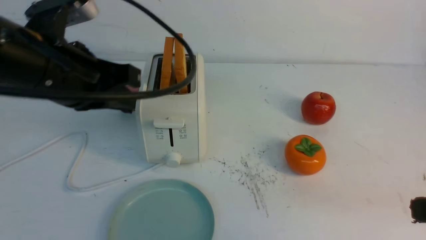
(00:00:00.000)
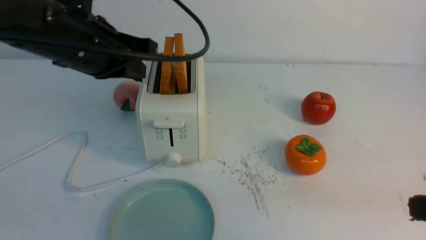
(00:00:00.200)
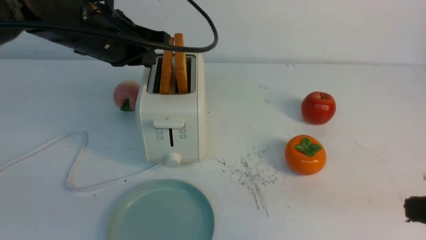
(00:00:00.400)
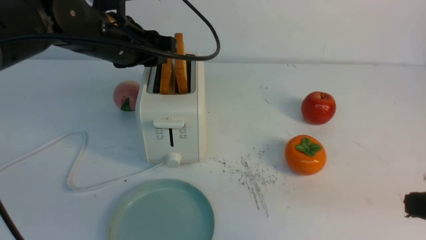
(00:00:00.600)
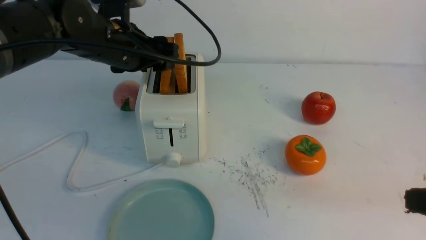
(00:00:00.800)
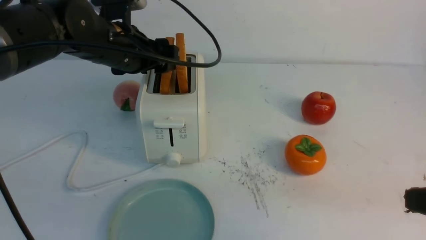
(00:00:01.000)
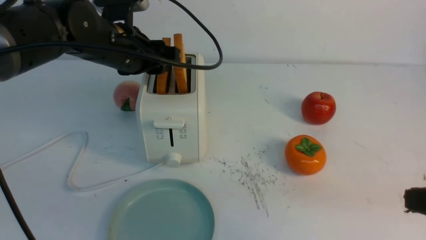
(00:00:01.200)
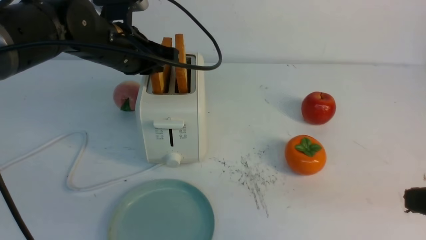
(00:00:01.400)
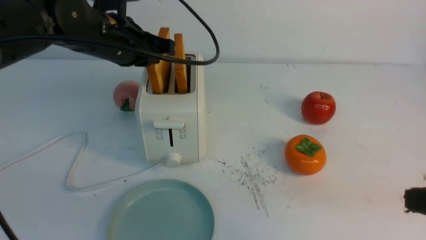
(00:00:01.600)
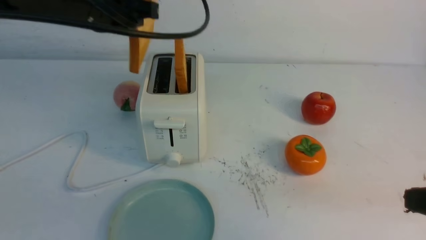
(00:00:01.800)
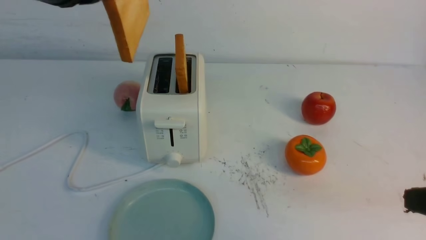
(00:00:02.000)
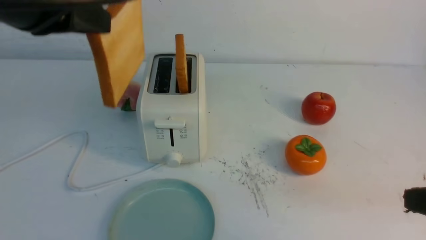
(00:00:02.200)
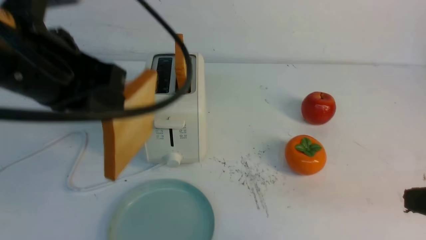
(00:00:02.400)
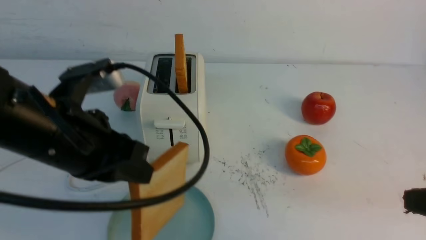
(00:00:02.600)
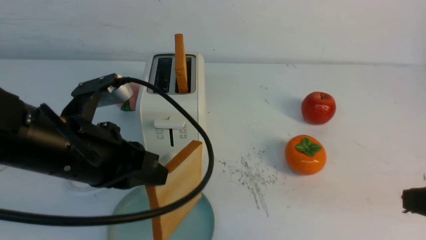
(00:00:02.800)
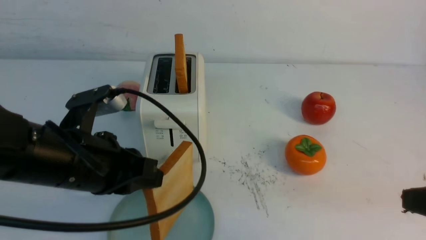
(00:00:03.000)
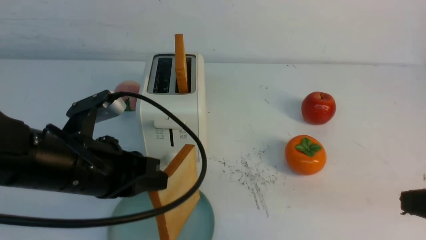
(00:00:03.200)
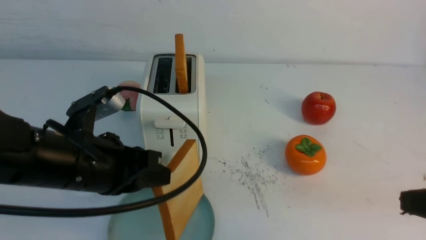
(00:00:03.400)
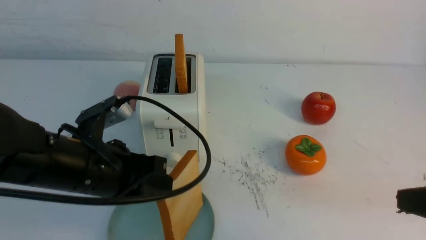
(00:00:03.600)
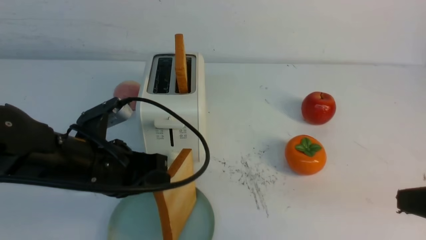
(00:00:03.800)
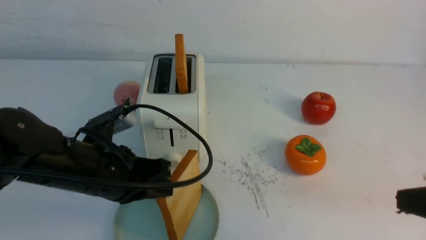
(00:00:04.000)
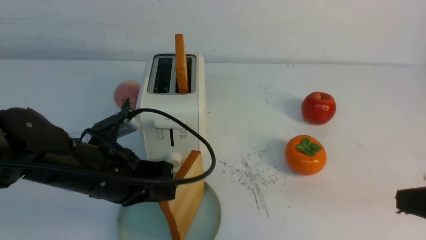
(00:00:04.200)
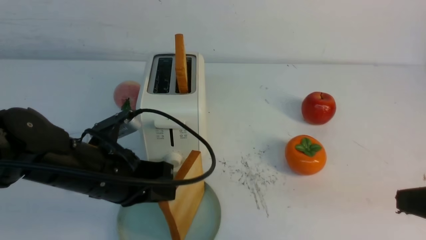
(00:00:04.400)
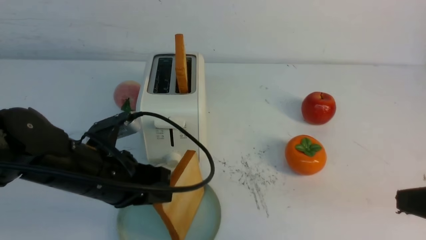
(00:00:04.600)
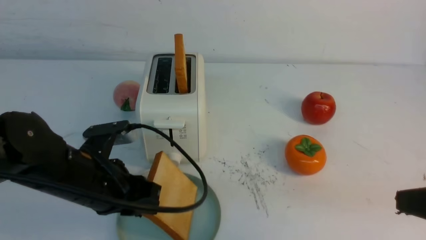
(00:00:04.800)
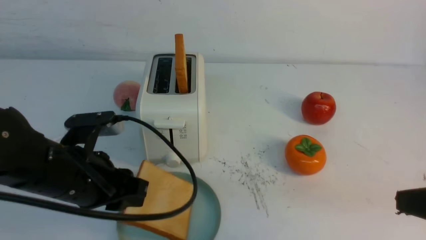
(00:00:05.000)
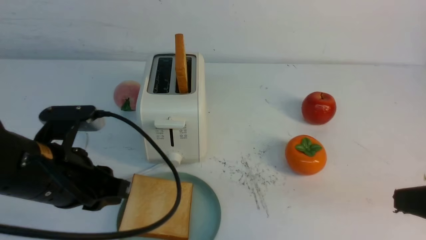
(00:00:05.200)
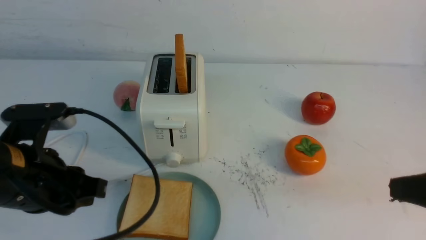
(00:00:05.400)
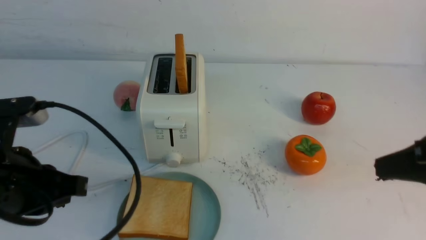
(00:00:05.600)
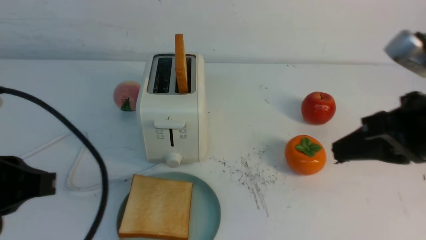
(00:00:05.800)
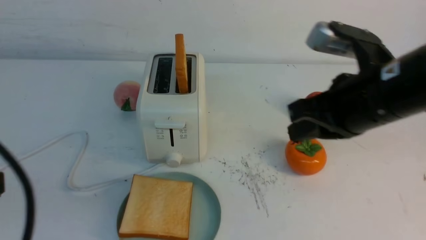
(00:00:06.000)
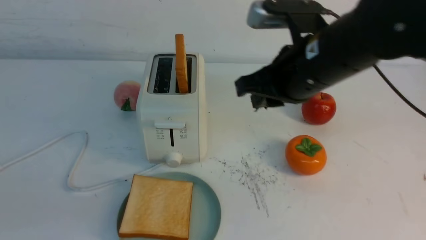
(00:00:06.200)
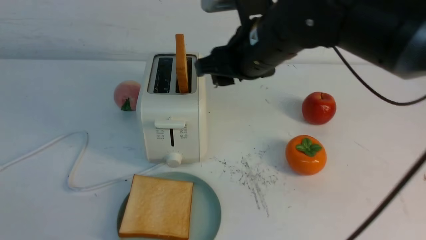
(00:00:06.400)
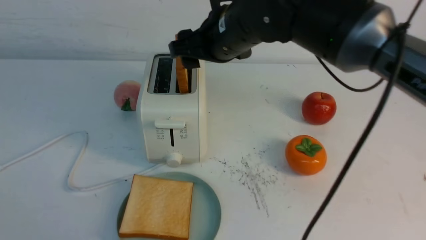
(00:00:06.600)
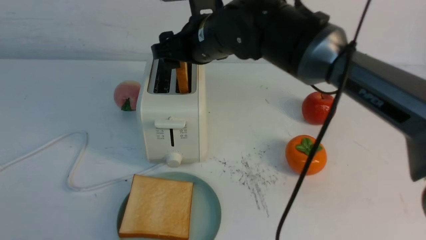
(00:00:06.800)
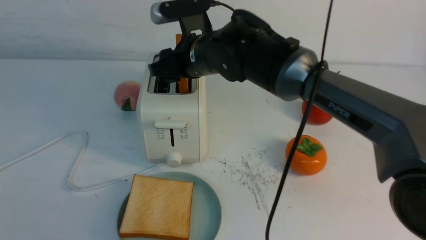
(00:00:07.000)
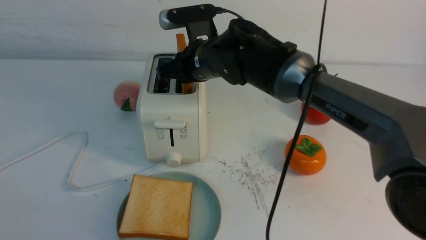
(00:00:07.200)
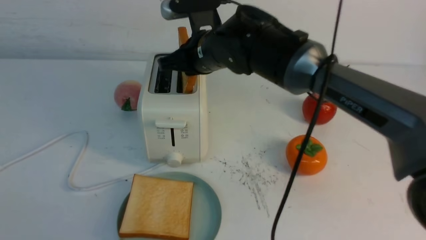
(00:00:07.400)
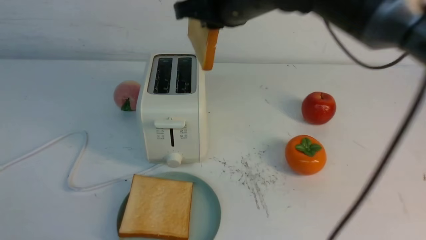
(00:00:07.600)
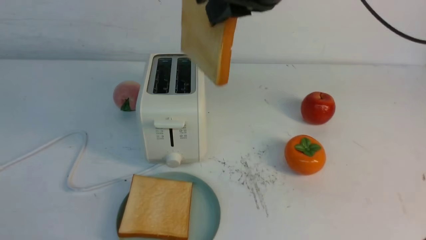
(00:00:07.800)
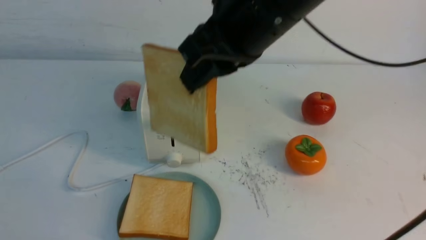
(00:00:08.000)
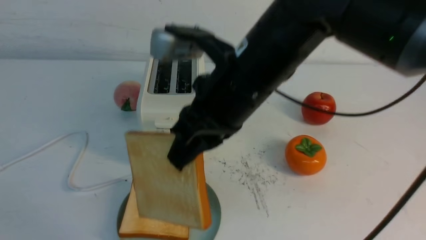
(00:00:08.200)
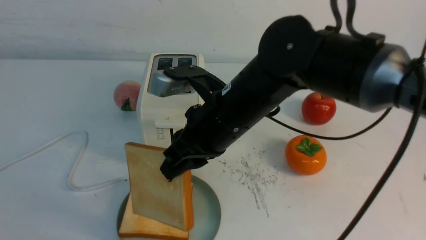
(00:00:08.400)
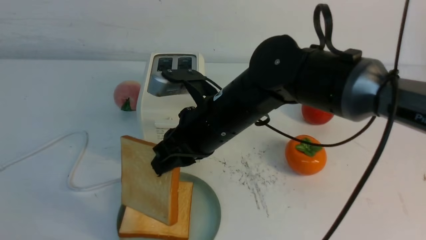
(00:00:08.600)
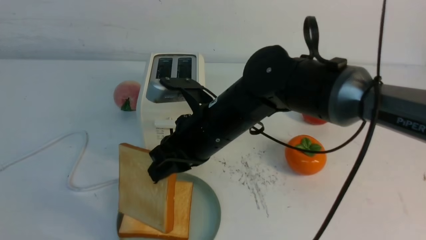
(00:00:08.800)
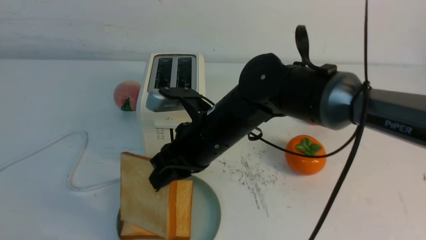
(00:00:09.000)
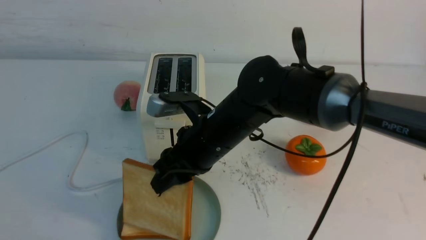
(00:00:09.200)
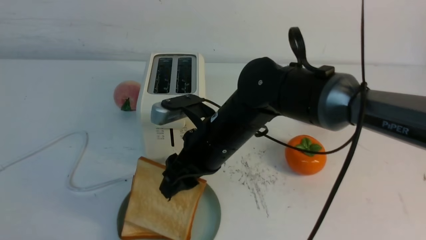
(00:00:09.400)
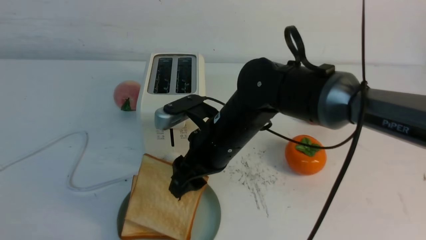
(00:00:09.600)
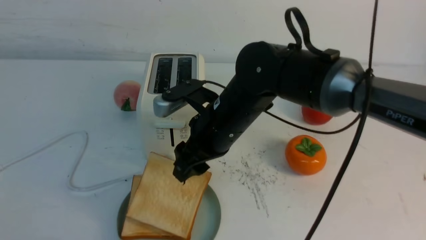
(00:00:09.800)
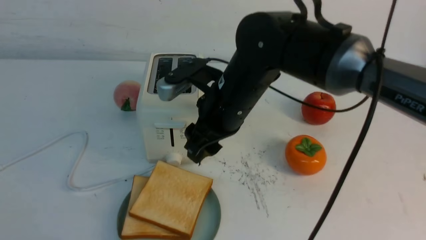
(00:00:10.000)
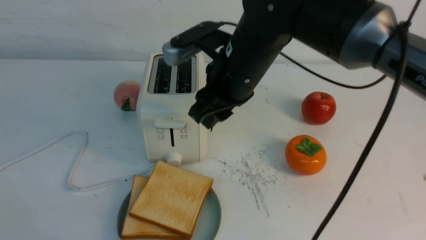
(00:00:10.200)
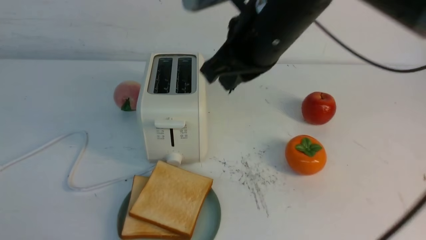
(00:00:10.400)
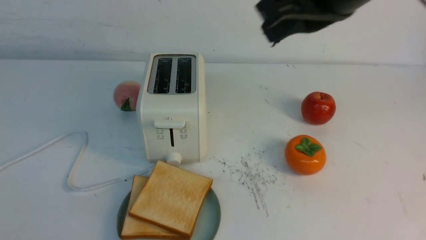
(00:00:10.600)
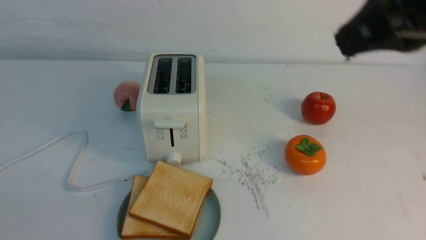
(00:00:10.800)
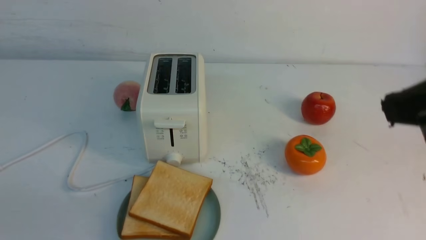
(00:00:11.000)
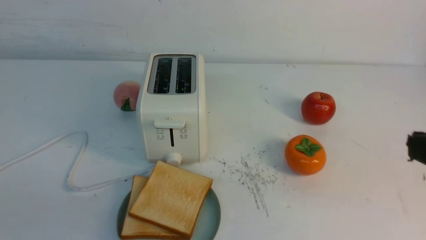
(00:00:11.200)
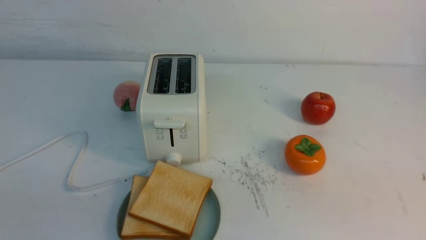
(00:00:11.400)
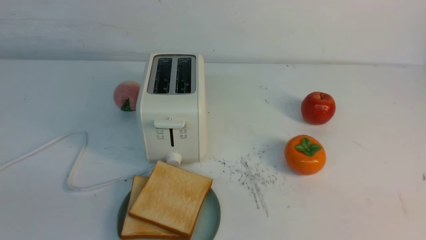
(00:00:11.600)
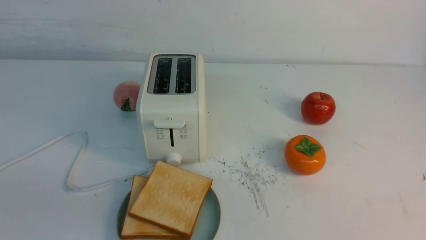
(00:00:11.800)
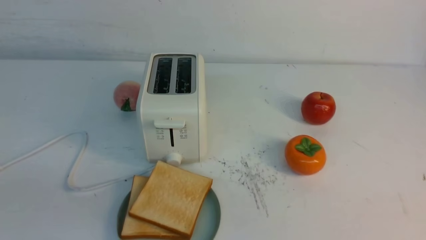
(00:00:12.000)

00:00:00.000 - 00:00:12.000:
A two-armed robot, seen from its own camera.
Task of the whole recording: take toasted bread from bread machine on white table place on plate.
Step, 00:00:01.800 - 00:00:05.000: use the left arm to put a slice of bread into the empty plate.
Step, 00:00:05.200 - 00:00:07.400: use the right arm to take out a slice of bread.
Step, 00:00:07.600 - 00:00:09.800: use the right arm to put a slice of bread into the plate.
00:00:00.000 - 00:00:01.600: The left gripper goes some 10 cm forward, and opens, then closes once more.
00:00:01.600 - 00:00:03.000: The left gripper travels backward and downward by roughly 15 cm.
00:00:03.000 - 00:00:04.400: The left gripper heads downward, covering about 5 cm.
00:00:04.400 - 00:00:06.000: The left gripper travels backward, upward and to the left by about 20 cm, and opens and closes again; the right gripper travels forward and to the left by roughly 15 cm.
00:00:06.000 - 00:00:07.600: The right gripper is displaced to the left, forward and upward by roughly 15 cm, and opens, then closes again; the left gripper is displaced backward by approximately 10 cm.
00:00:07.600 - 00:00:09.000: The right gripper heads downward, covering roughly 15 cm.
00:00:09.000 - 00:00:10.400: The right gripper shifts about 20 cm upward and to the right, and opens, then closes again.
00:00:10.400 - 00:00:12.000: The right gripper shifts roughly 40 cm backward, to the right and downward.

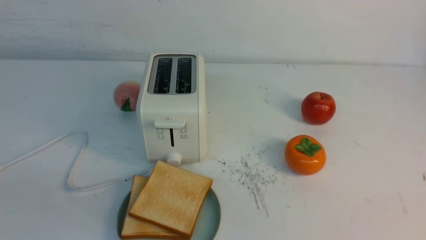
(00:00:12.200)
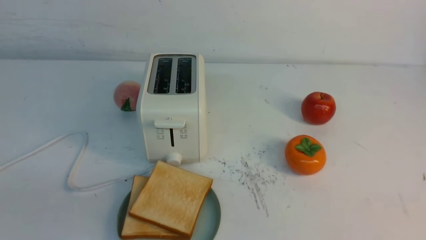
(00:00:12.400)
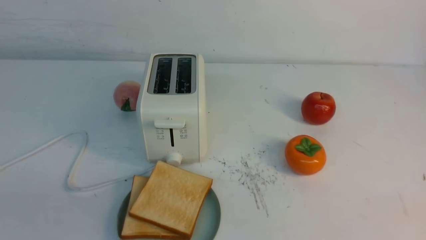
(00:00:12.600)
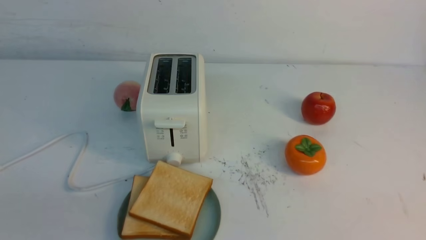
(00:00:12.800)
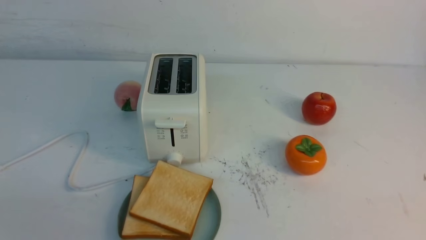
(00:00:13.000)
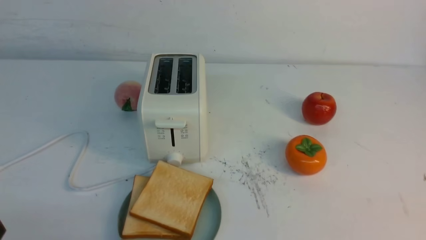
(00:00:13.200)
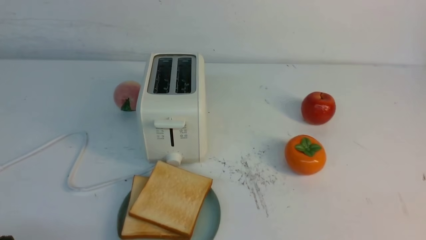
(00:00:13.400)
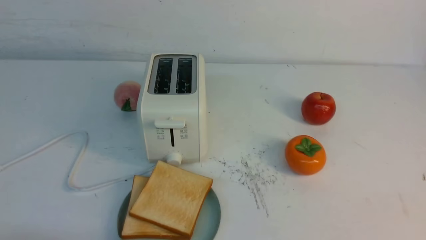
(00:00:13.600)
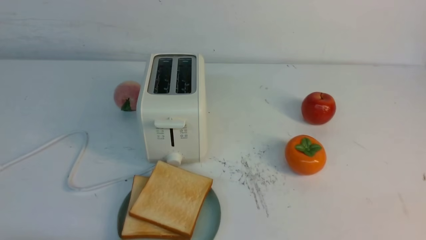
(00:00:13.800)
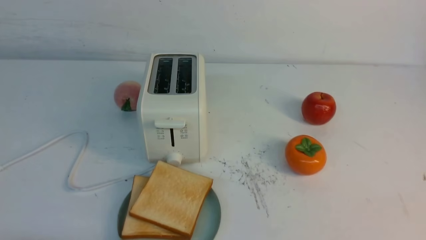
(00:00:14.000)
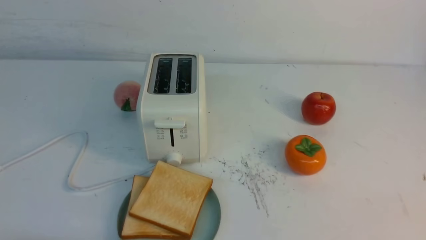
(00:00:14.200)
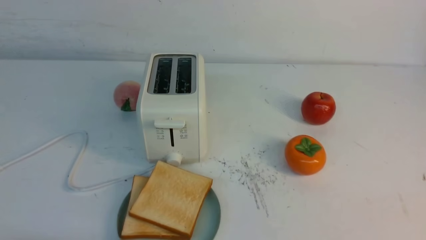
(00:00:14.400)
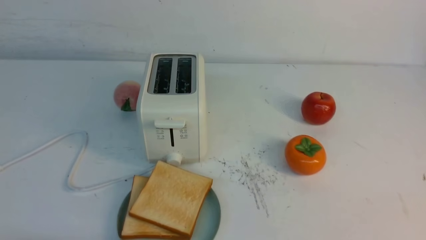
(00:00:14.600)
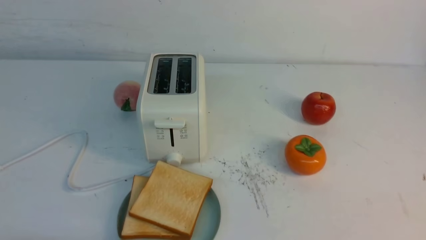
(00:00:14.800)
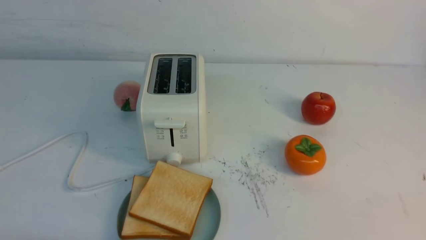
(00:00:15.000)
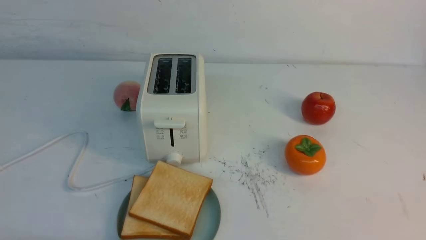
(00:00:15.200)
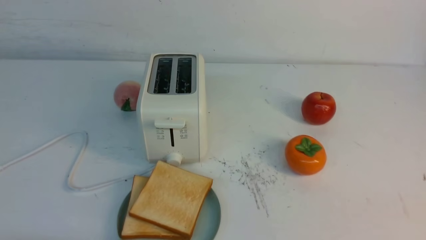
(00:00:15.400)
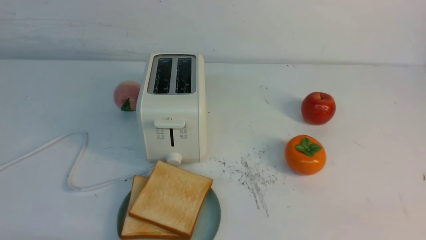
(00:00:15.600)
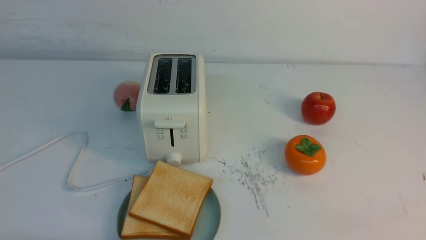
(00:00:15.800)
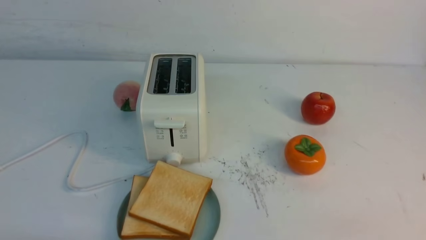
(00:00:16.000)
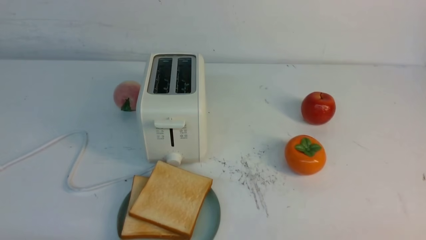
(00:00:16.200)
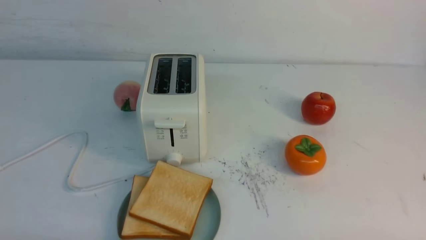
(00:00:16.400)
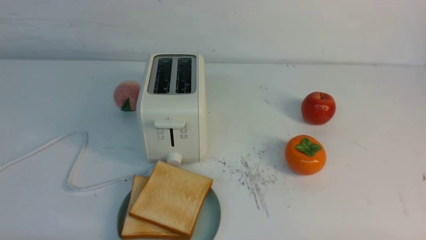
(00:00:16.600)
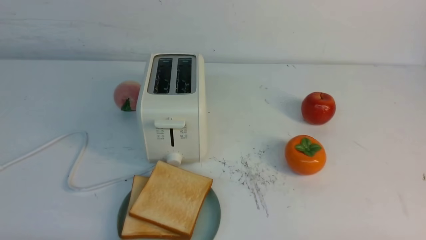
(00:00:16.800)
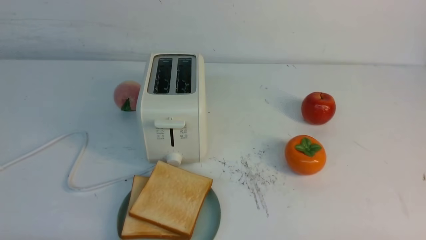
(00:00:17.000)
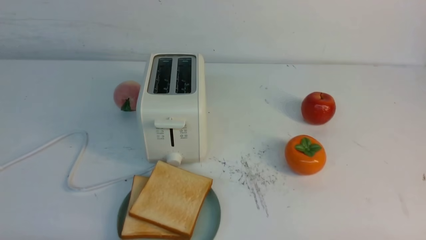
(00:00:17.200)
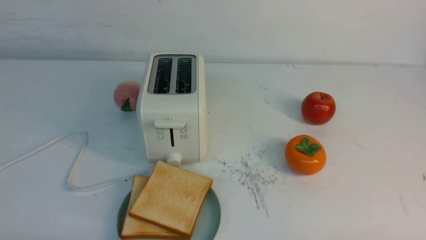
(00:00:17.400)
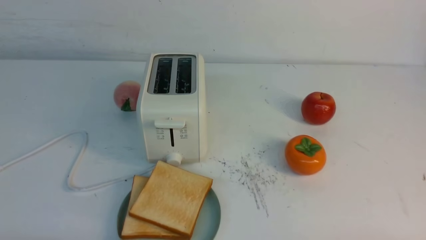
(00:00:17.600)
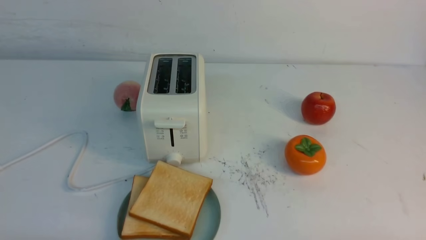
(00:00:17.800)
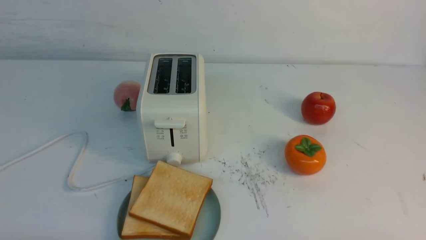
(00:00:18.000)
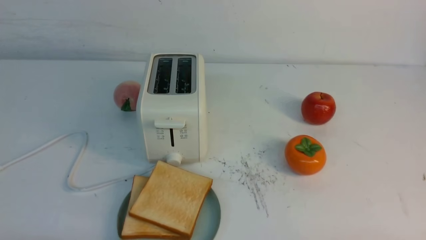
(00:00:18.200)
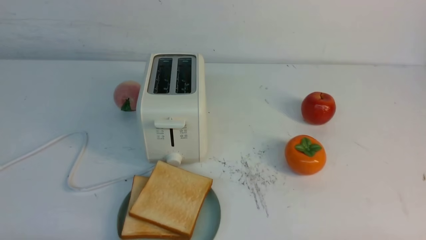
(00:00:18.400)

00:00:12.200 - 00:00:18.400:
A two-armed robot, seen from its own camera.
Task of the whole recording: take toasted bread from bread machine on white table place on plate.
00:00:13.800 - 00:00:15.400: The two grippers keep their place.
00:00:16.800 - 00:00:18.400: The two grippers keep their place.
